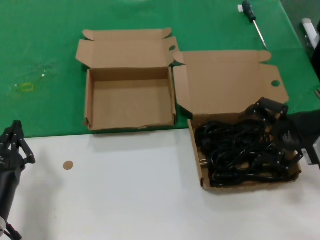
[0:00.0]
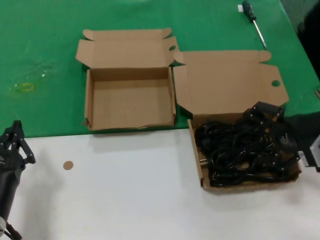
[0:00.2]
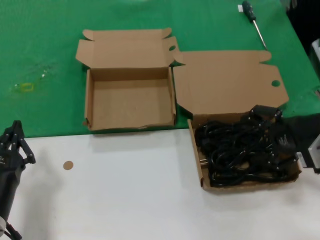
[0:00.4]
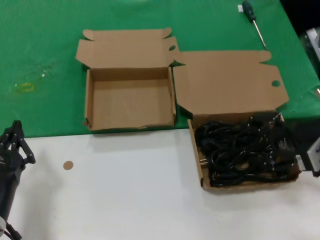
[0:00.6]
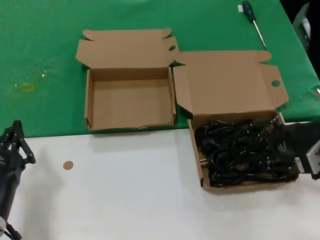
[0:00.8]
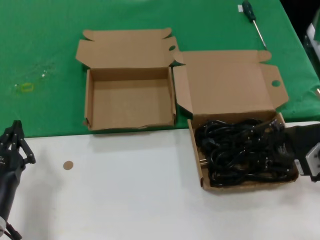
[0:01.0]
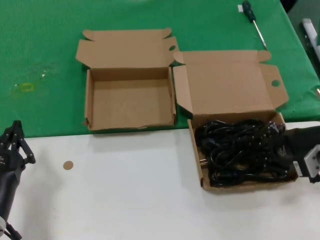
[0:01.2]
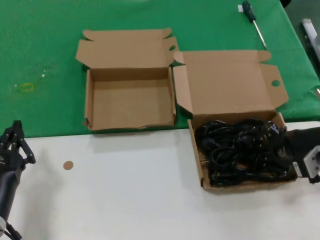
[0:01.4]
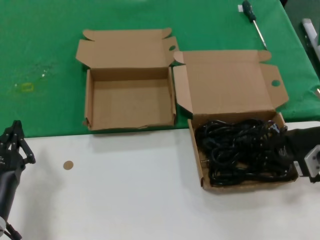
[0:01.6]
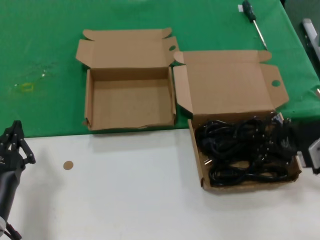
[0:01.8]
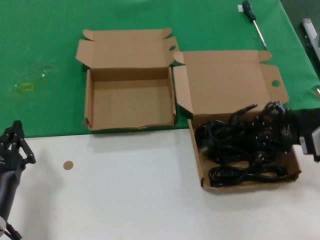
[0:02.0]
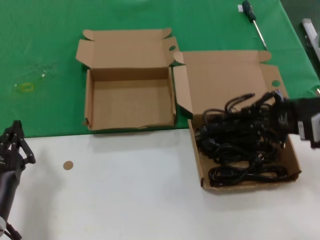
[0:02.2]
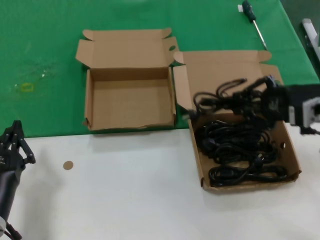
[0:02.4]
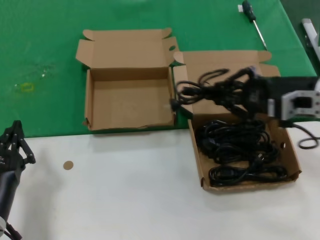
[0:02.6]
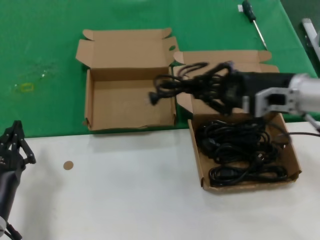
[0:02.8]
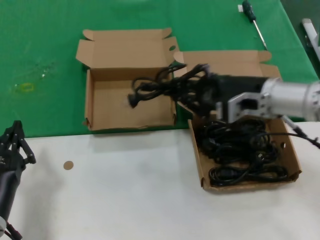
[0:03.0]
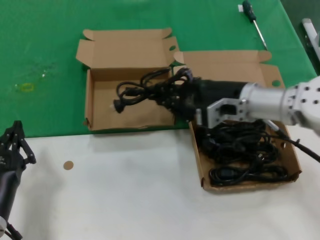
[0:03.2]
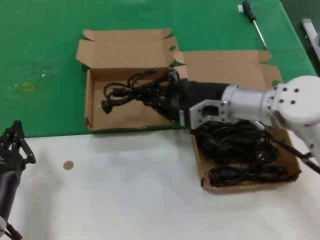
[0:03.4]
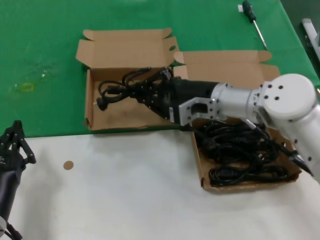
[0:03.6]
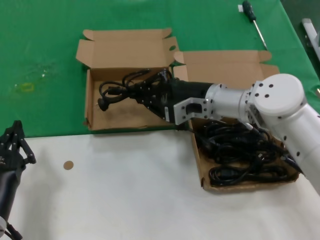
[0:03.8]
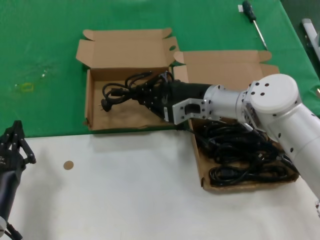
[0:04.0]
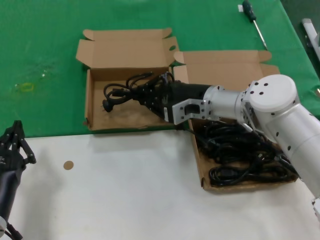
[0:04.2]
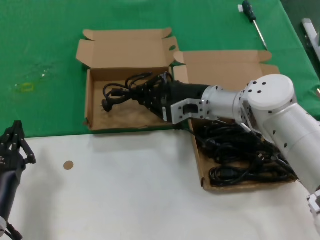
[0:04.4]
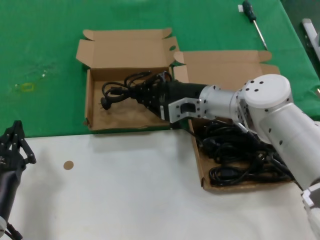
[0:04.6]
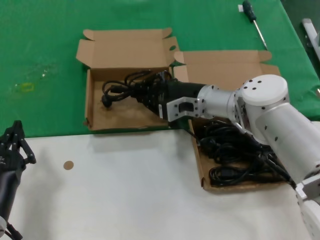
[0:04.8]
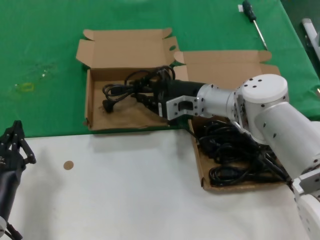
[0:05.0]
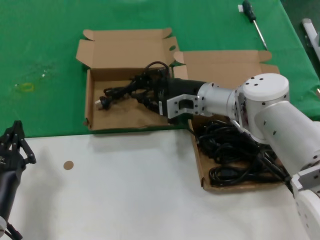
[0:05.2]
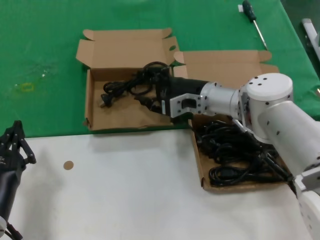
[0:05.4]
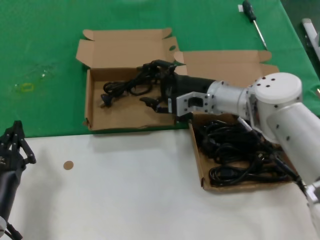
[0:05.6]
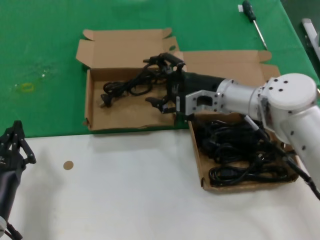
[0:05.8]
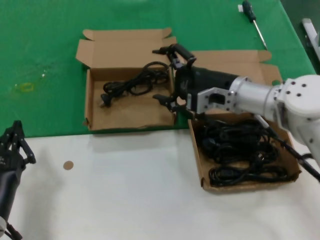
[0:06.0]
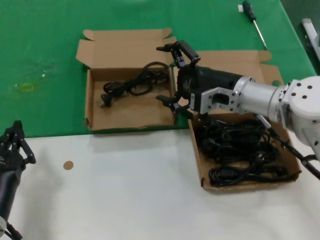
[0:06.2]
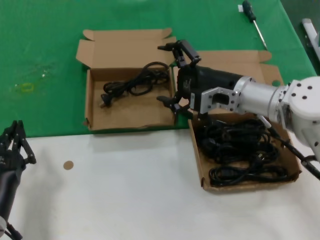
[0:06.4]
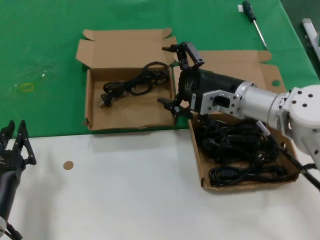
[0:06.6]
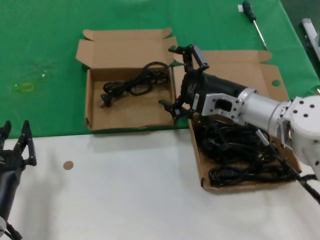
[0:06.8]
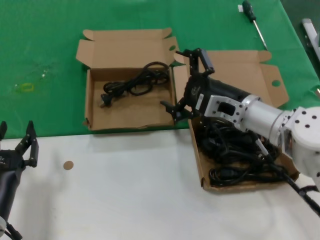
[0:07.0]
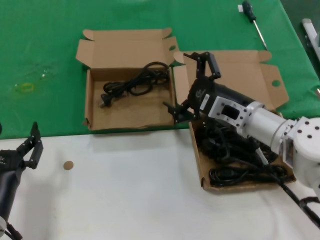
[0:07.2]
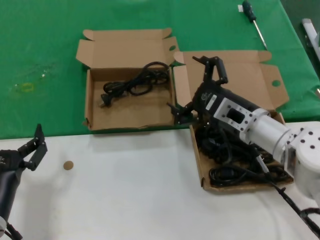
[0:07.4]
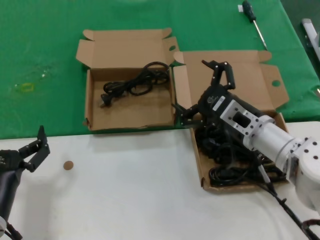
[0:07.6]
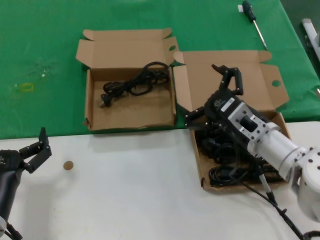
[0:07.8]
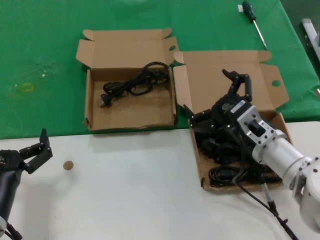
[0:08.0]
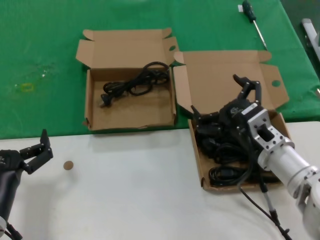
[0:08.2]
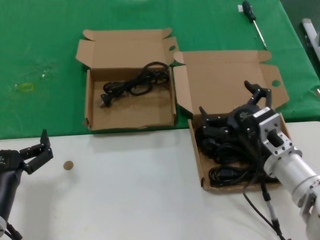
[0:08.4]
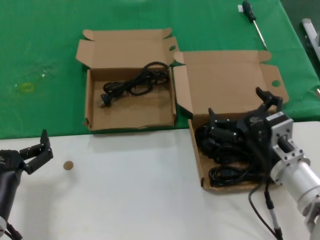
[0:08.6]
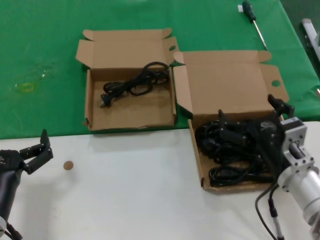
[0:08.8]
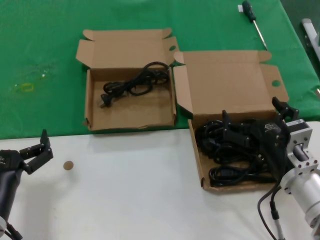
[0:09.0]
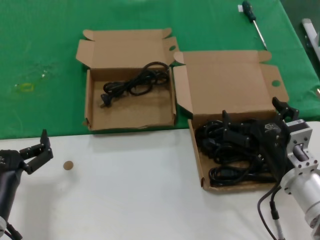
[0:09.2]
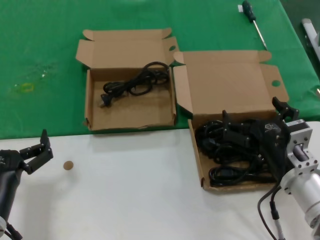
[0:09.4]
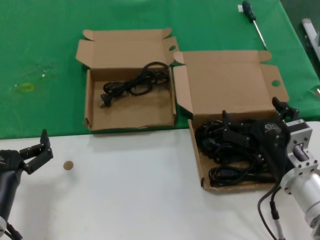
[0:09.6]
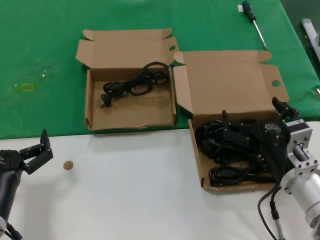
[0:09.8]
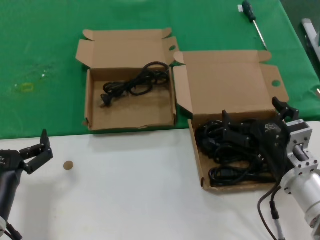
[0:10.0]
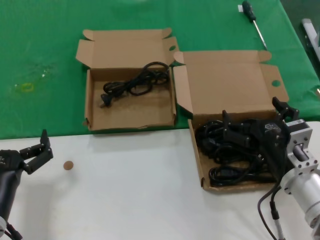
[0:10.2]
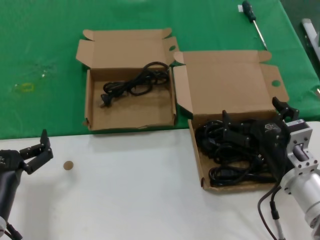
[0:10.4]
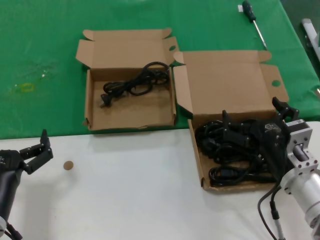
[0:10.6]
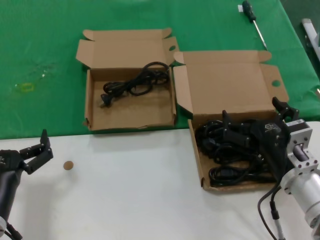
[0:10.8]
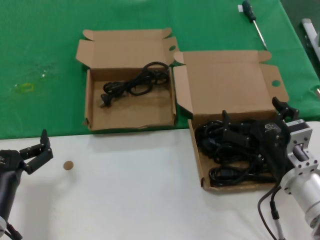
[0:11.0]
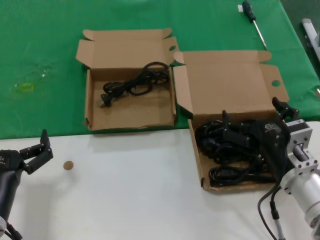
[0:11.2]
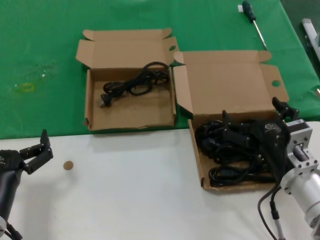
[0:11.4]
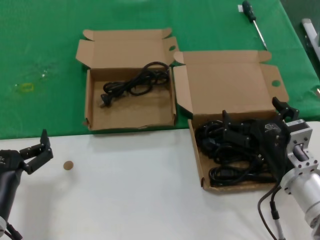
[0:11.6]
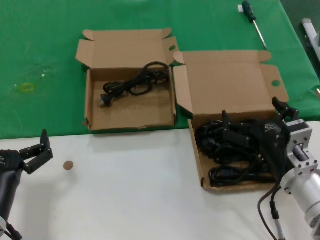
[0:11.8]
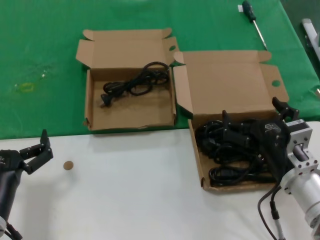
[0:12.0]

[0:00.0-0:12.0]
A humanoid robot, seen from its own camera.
Task of the whole recording: take the parts from the box containing them and put them into an empty box.
Step, 0:01.4 to 0:05.8: Place the data cable in the another box.
0:00.0 to 0:01.6: The right hand heads downward, covering about 5 cm.
0:01.6 to 0:03.0: The right hand goes some 15 cm to the left, upward and forward.
0:03.0 to 0:04.4: The right hand heads to the left, forward and downward, covering about 15 cm.
0:04.4 to 0:06.0: The right hand shifts by some 5 cm.
0:06.0 to 0:07.6: The right hand is displaced backward and downward by about 10 cm.
0:07.6 to 0:09.0: The right hand shifts approximately 10 cm backward.
0:09.0 to 0:12.0: Both hands stay about where they are.

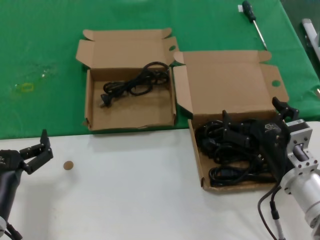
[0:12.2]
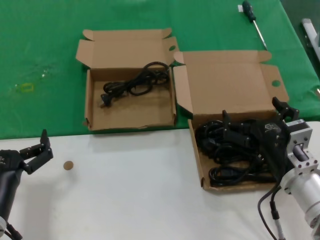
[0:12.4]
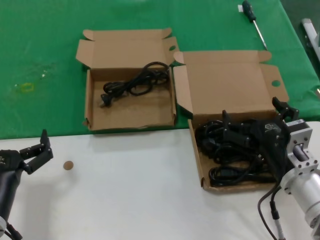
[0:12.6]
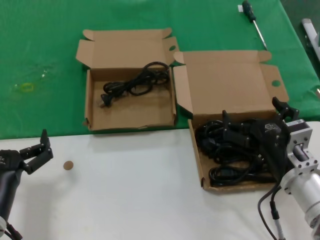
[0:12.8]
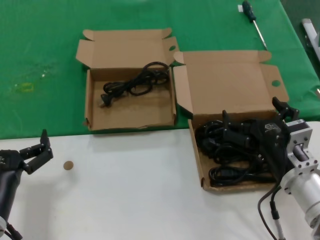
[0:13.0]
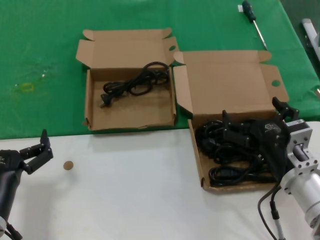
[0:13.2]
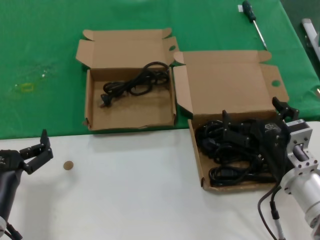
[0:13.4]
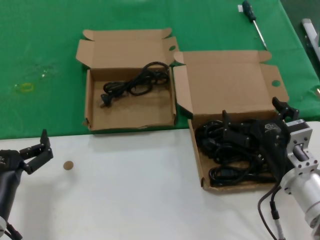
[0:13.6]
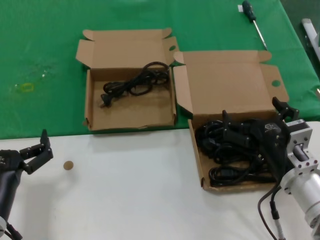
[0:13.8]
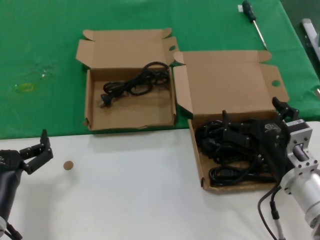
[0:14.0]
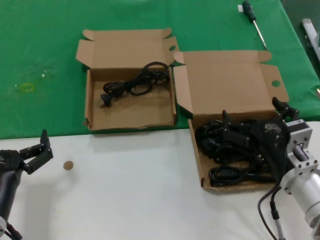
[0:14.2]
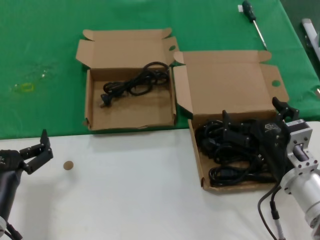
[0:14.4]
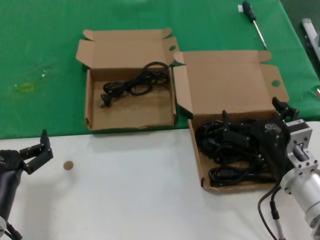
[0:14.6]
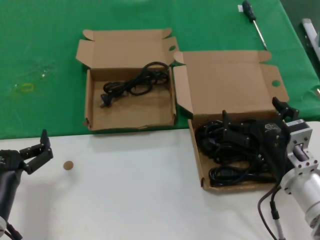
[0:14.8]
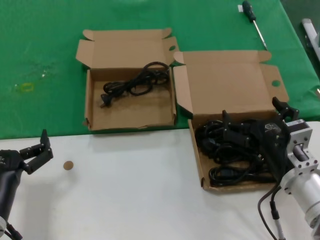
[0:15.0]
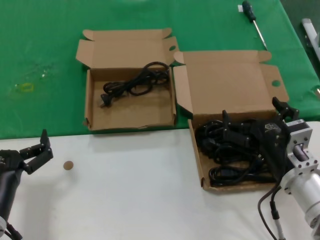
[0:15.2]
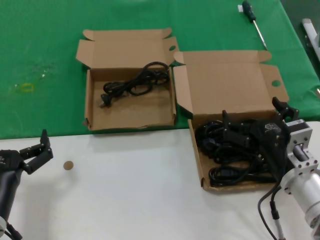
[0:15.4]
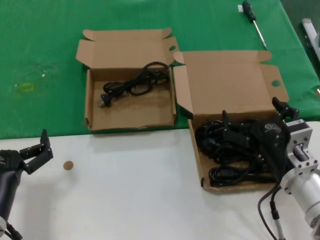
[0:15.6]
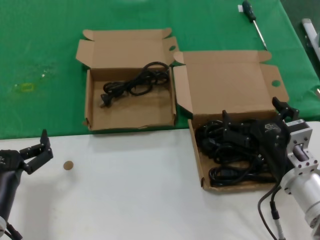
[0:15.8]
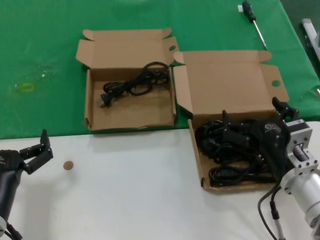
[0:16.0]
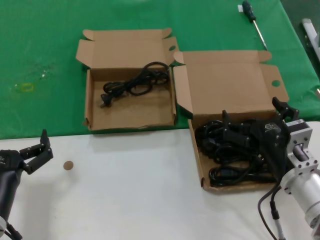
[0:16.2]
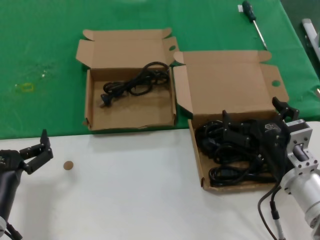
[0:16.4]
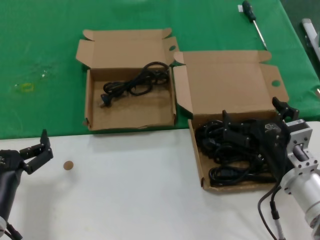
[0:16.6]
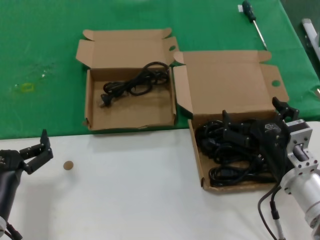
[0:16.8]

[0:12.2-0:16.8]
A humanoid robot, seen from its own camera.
Task of the whole recording: take the parts from the box containing them and put them into an empty box.
0:12.2 to 0:16.8: Both hands stay put.
